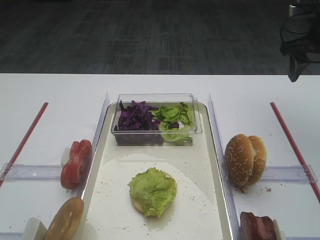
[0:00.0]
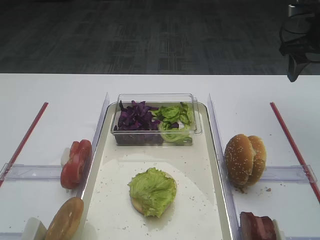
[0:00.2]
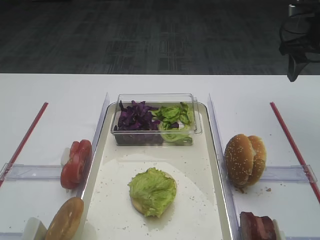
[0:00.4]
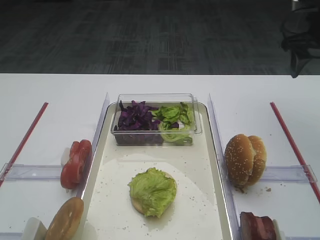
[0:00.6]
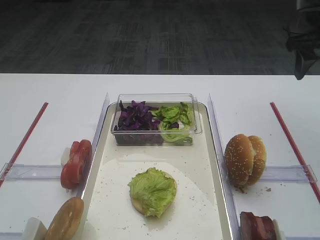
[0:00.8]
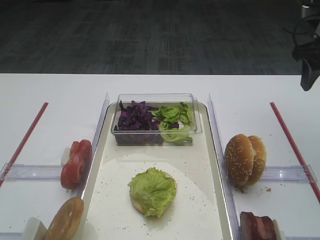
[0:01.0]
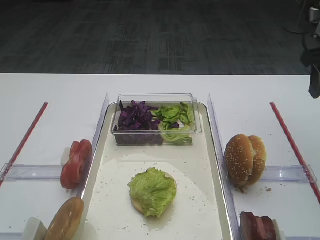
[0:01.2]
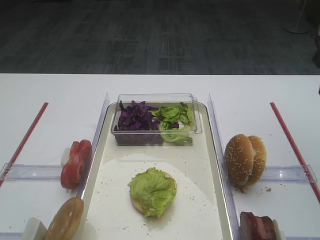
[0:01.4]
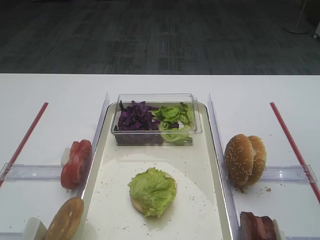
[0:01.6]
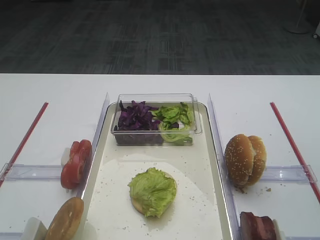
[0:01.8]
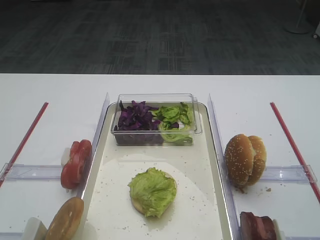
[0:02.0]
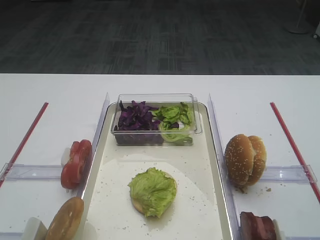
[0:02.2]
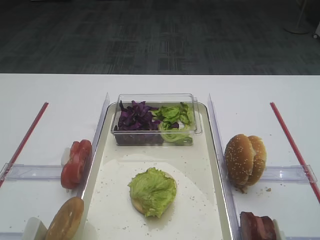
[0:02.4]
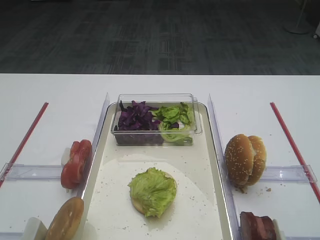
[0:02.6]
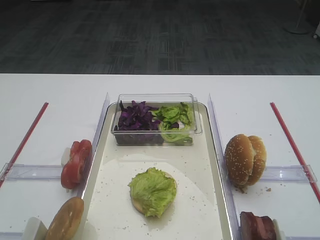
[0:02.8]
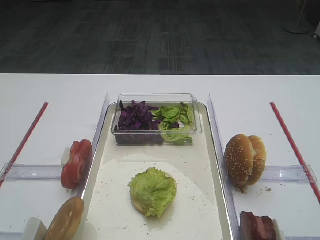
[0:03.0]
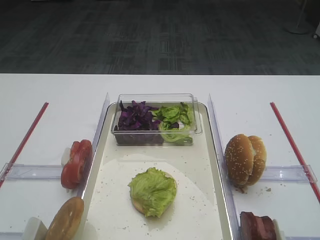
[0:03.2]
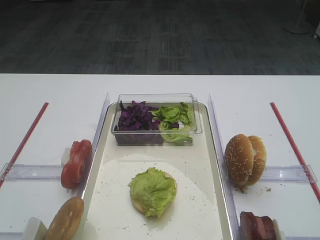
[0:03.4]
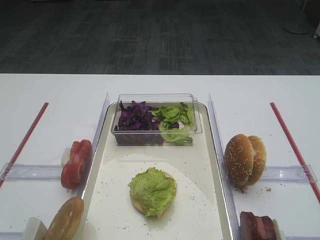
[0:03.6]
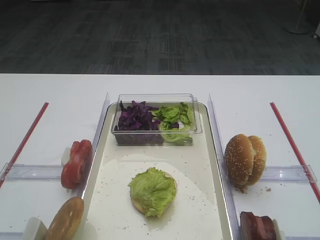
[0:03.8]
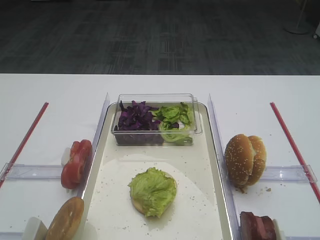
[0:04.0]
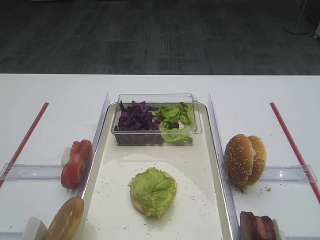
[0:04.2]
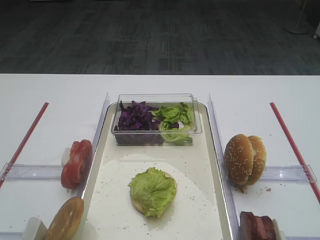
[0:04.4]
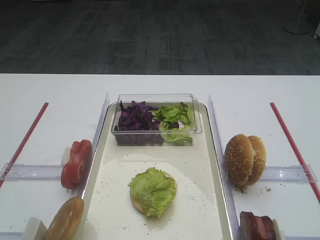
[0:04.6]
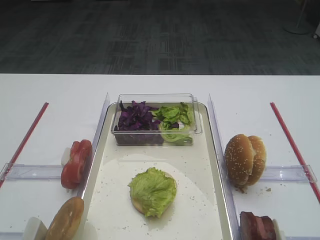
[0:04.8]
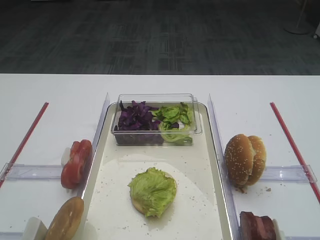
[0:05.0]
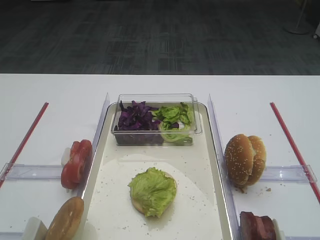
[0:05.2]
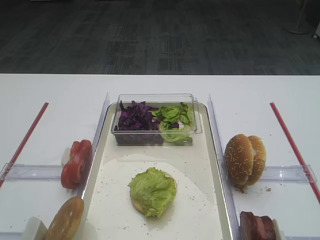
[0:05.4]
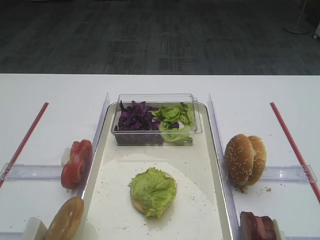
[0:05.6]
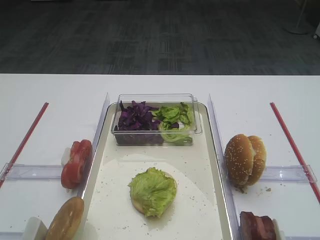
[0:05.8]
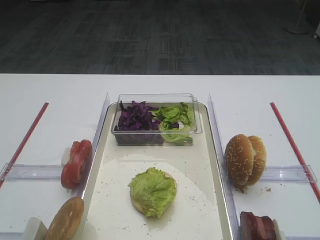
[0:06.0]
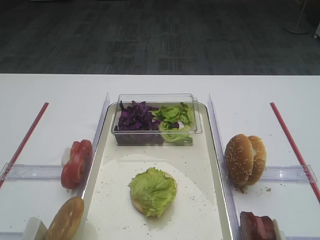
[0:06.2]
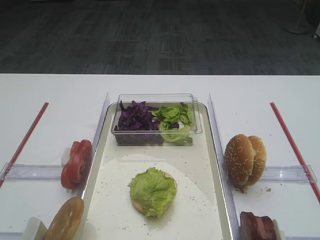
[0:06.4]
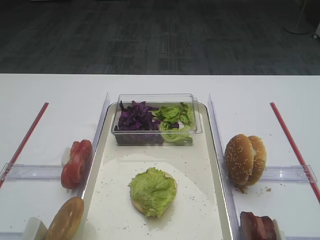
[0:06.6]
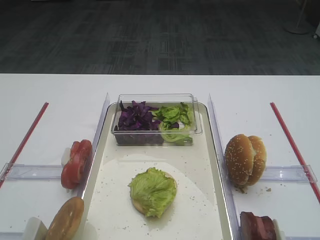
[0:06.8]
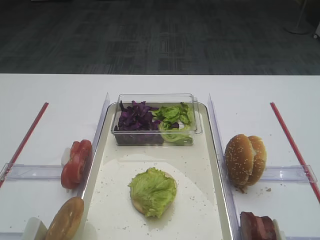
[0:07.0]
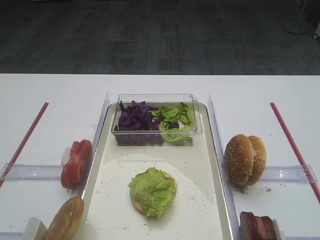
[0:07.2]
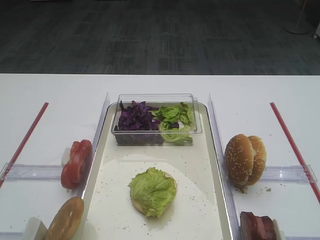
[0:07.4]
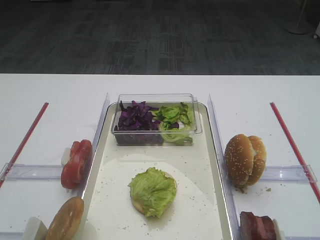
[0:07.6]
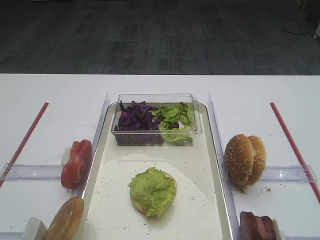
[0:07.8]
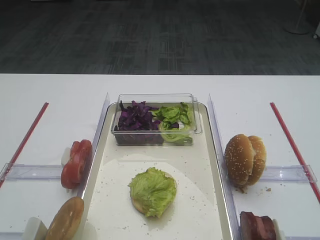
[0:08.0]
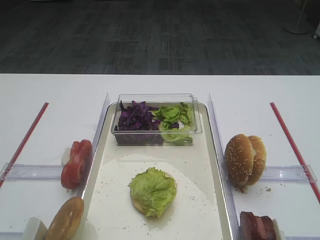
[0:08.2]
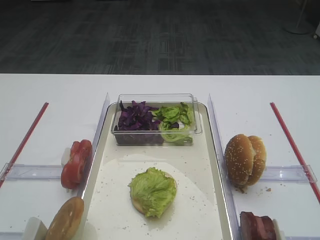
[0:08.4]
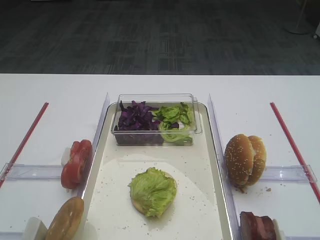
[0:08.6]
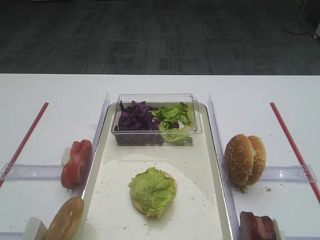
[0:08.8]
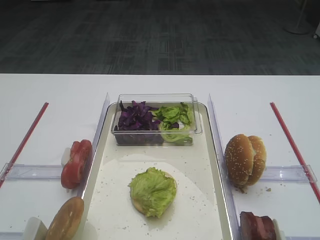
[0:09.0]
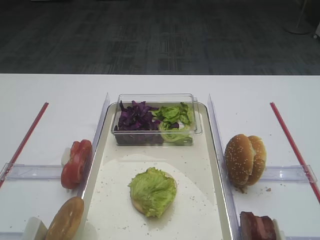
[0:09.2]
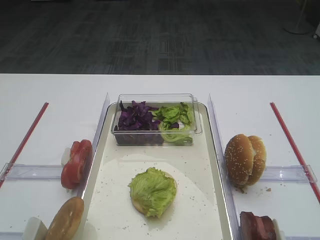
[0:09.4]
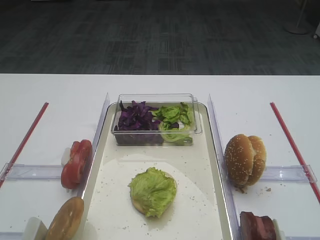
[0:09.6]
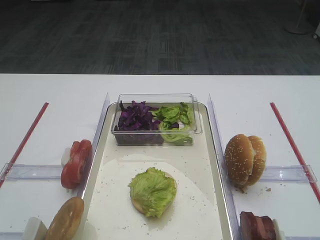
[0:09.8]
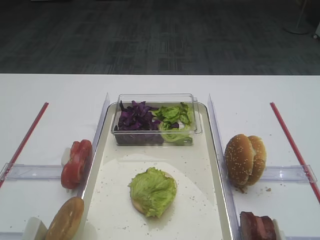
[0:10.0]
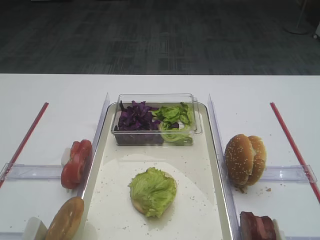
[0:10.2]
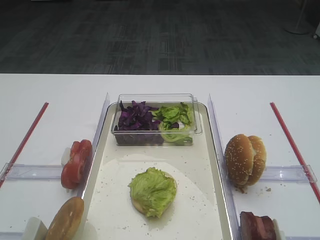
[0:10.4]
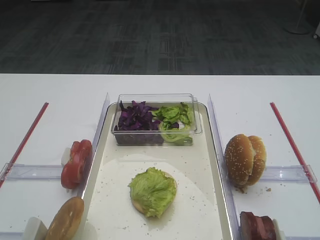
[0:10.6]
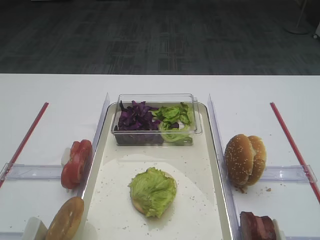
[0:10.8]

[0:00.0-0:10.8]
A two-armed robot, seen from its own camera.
0:00.0 to 0:01.6: The right gripper heads backward, covering about 15 cm.
0:04.6 to 0:10.8: Both grippers stay put.

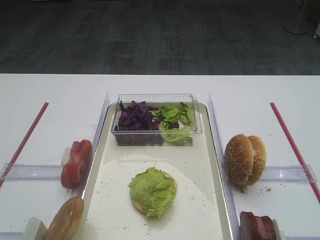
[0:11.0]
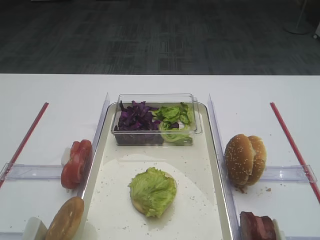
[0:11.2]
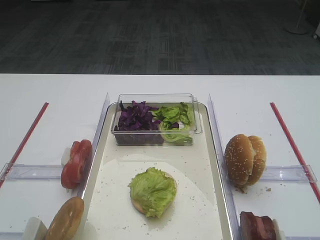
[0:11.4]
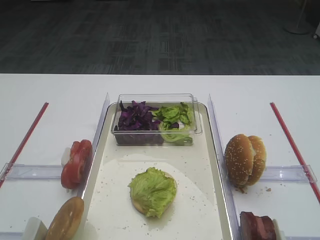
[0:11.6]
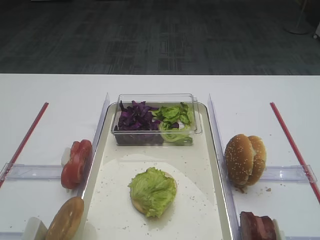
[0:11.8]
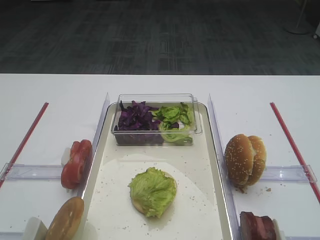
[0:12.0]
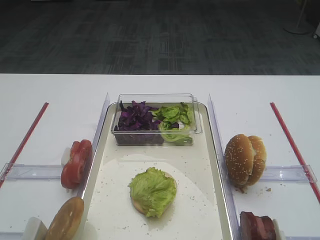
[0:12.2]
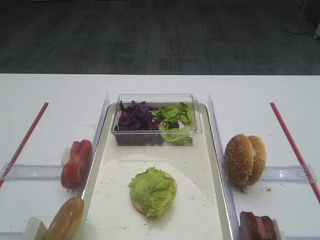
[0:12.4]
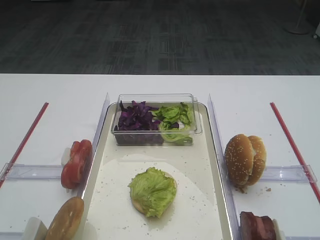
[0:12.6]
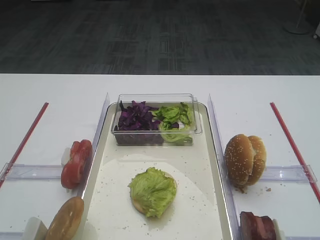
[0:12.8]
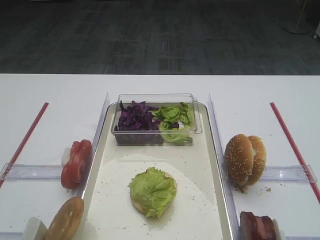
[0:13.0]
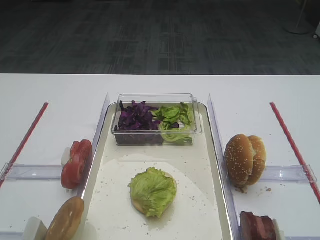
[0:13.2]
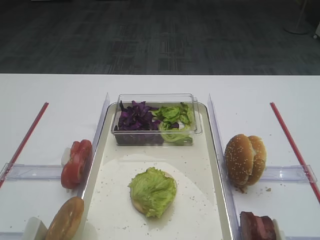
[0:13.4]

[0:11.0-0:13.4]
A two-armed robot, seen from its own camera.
0:11.0 to 0:13.4: Neither gripper changes place.

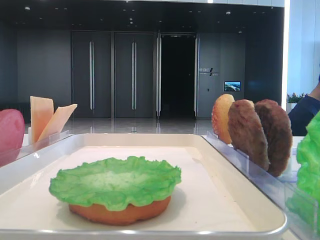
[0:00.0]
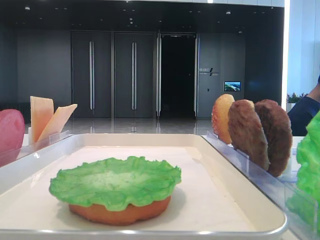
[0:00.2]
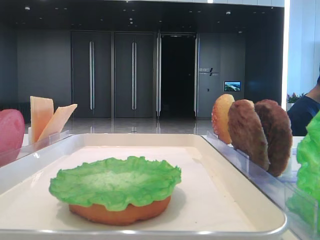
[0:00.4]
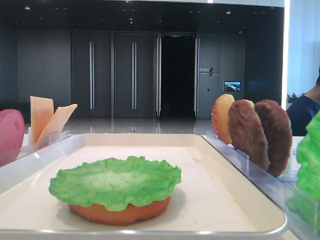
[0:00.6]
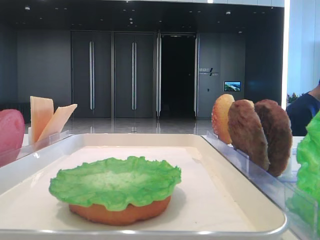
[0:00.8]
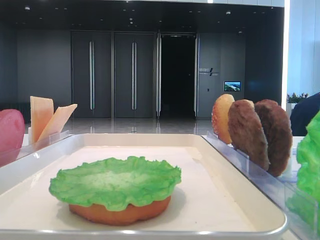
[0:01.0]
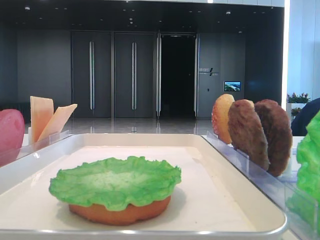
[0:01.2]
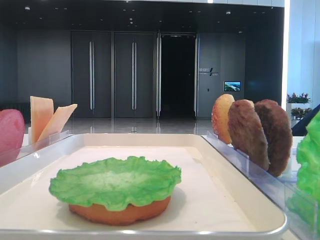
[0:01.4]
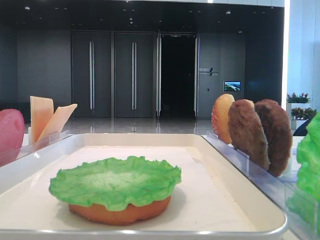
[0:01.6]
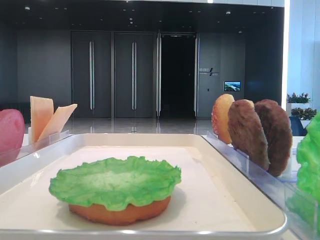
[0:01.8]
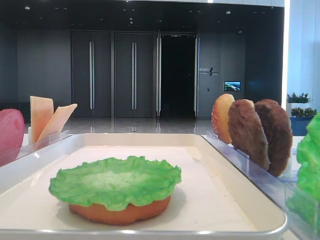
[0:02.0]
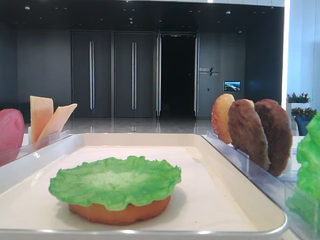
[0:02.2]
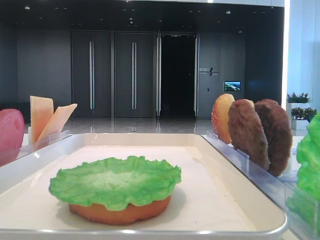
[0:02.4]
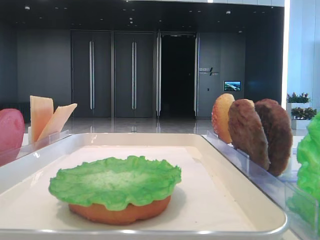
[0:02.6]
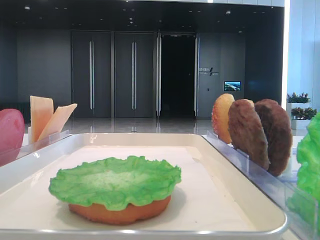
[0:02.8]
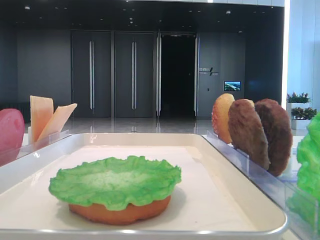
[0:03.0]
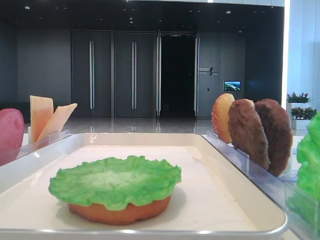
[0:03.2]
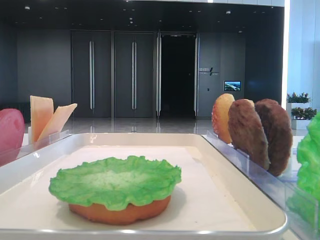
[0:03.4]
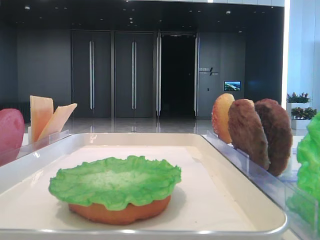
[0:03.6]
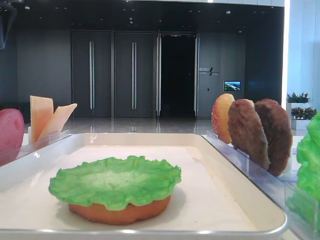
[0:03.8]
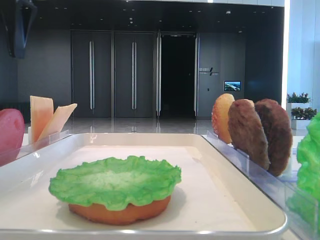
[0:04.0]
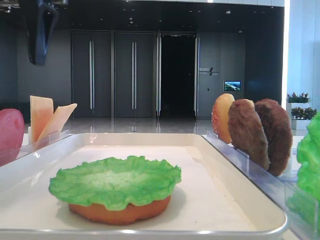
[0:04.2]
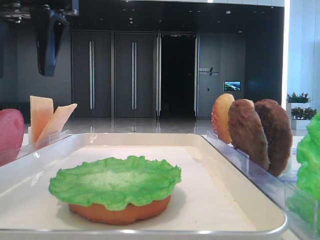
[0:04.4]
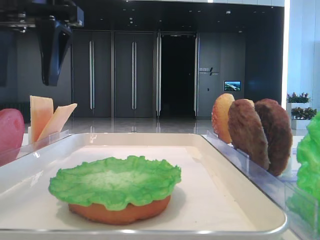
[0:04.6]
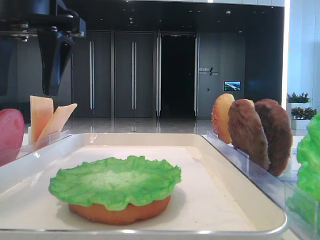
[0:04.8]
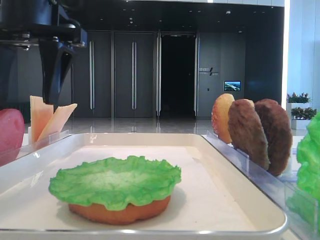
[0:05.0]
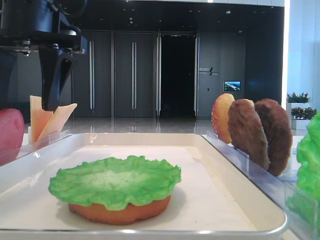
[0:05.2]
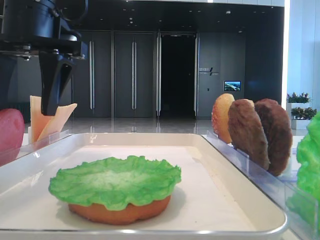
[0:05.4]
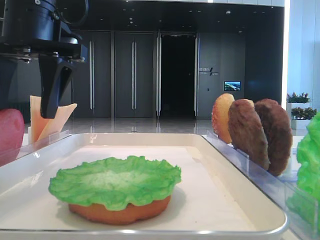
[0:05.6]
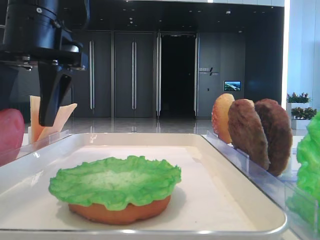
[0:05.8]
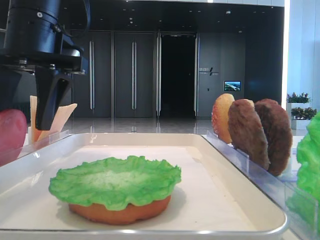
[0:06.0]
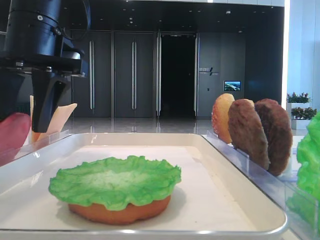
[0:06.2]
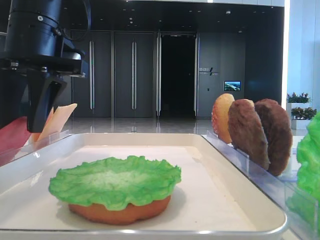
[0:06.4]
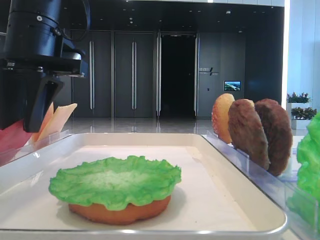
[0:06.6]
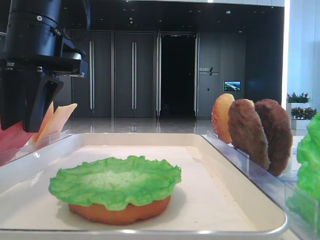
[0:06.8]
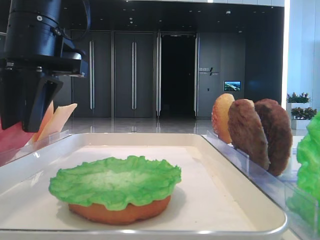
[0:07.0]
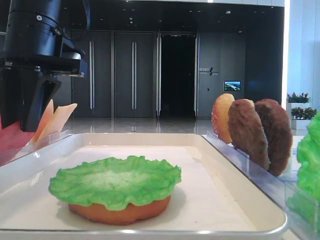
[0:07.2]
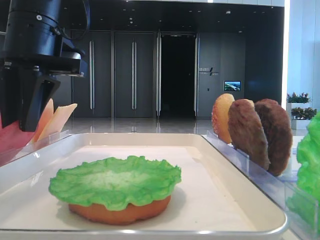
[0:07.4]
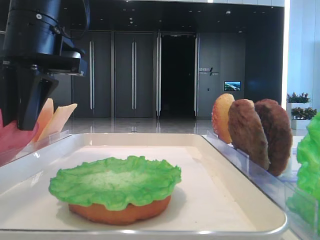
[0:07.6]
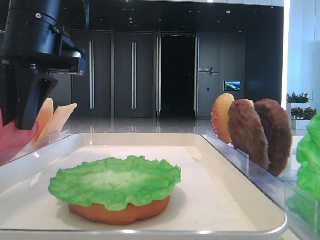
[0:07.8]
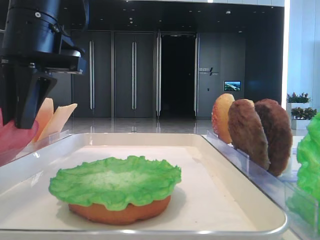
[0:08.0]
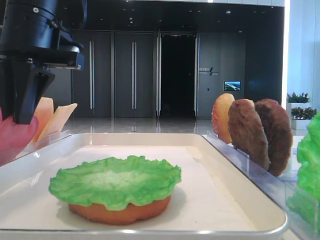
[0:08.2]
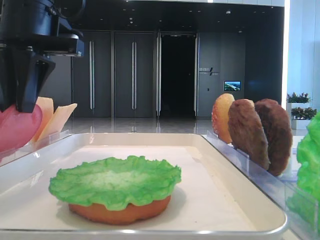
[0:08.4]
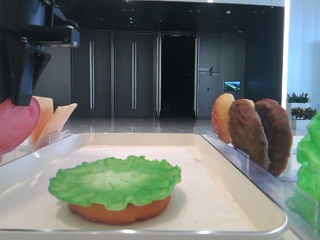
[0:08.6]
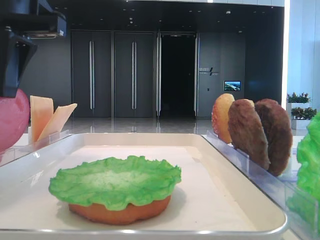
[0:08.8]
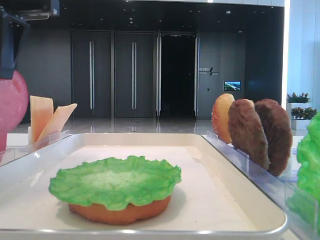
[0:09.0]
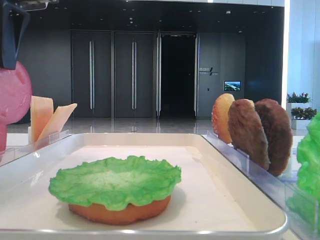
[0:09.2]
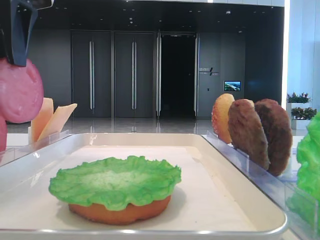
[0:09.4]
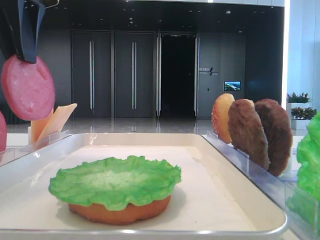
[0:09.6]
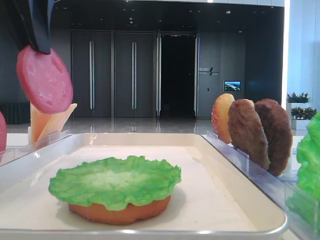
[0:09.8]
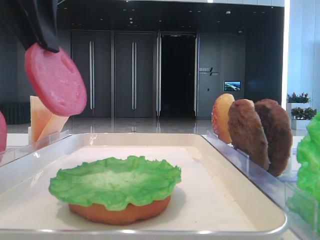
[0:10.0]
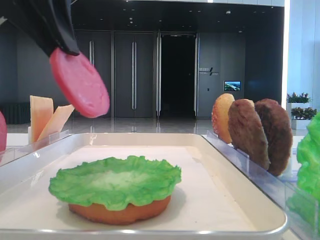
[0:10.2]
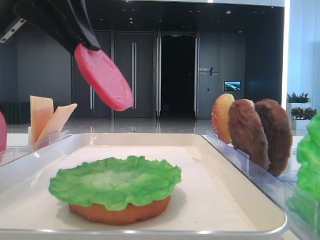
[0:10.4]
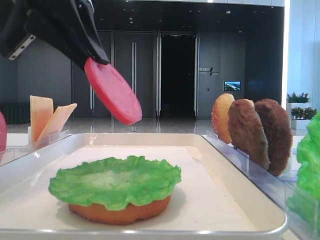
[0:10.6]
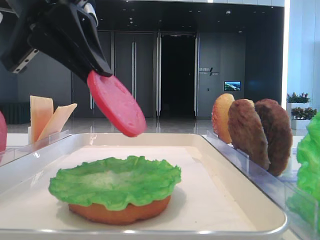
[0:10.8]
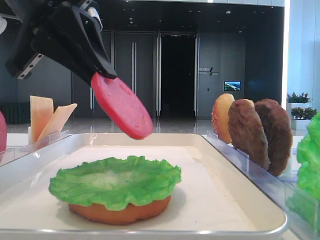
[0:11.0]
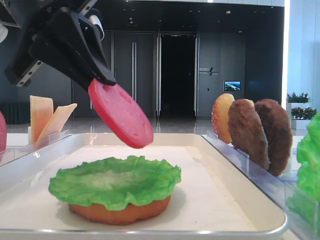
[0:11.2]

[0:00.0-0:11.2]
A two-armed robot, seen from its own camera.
Step, 0:00.0 to 0:07.8: Pick up the tomato slice with the left hand.
0:03.2 to 0:04.8: The left gripper shifts some 15 cm to the right.
0:04.8 to 0:06.4: The left gripper closes.
0:06.4 to 0:08.0: The left gripper closes its fingers.
0:08.0 to 0:09.6: The left gripper goes roughly 5 cm upward.
0:09.6 to 0:11.2: The left gripper shifts about 5 cm downward.
